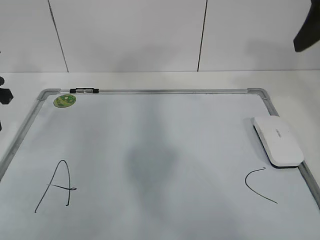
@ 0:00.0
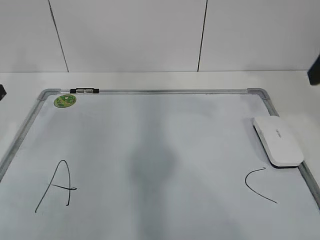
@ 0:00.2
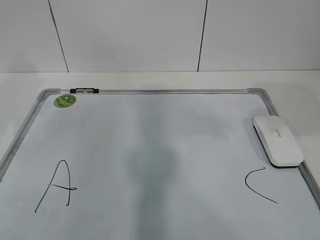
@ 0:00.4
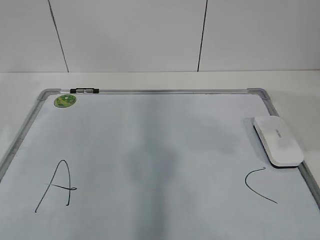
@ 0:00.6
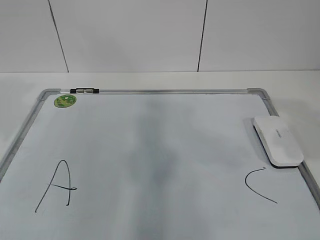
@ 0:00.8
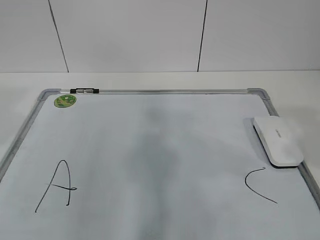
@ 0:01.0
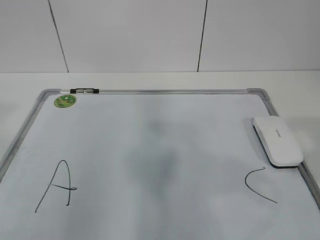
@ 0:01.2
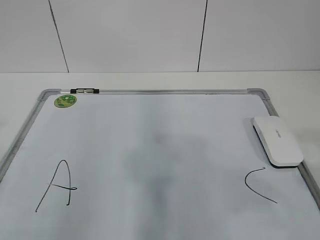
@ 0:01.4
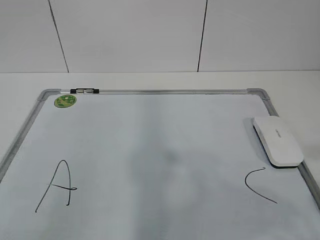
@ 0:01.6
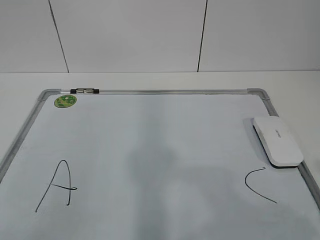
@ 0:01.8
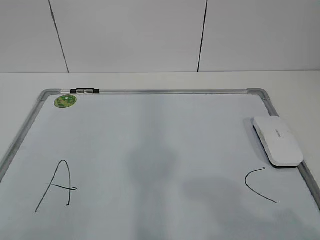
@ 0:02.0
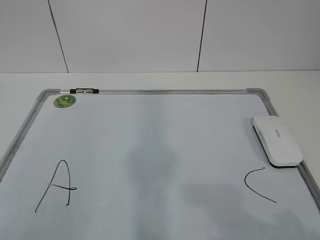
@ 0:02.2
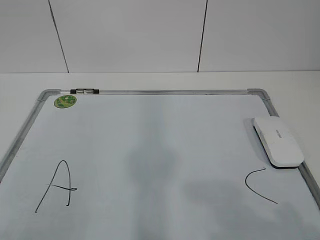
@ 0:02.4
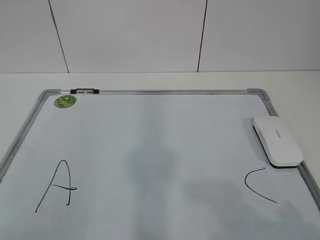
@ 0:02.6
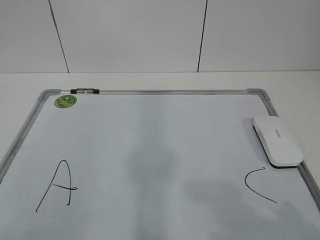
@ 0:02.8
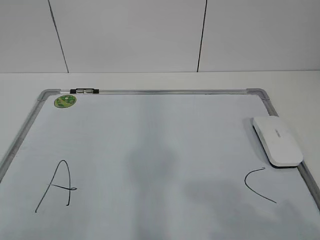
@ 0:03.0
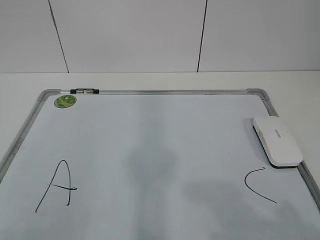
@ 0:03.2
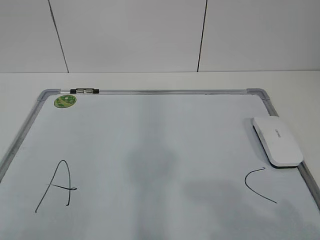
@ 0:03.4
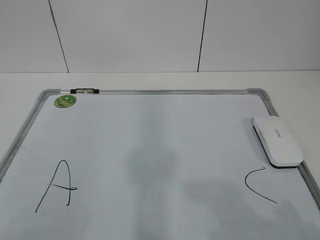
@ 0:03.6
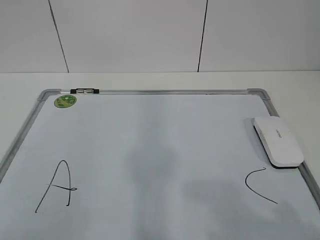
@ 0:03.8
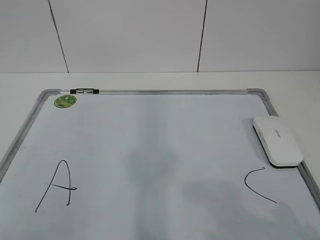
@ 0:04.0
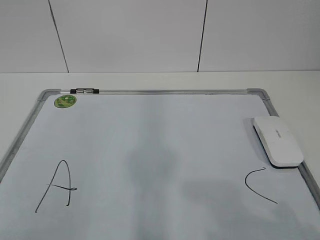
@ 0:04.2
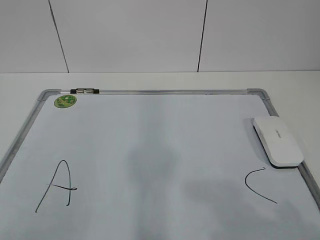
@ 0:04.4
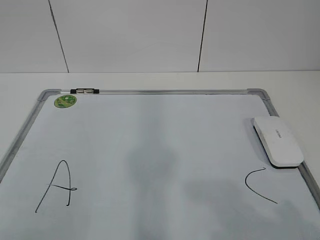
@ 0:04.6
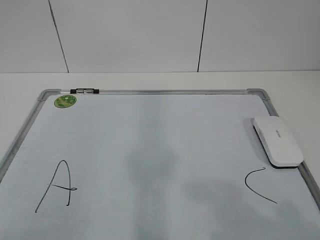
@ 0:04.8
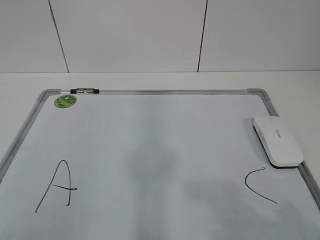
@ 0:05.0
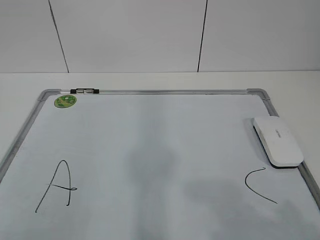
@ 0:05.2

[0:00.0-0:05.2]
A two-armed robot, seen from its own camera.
Task of the whole recording: pick up the eraser on the blackboard and erase the letter "B".
0:00.0 to 0:01.8: The two grippers go approximately 30 cm backward.
0:03.4 to 0:05.2: Neither gripper changes place.
